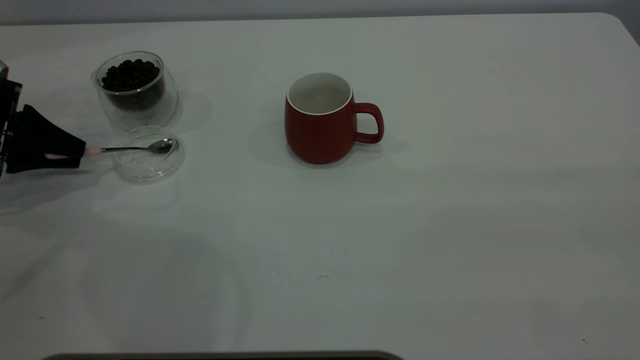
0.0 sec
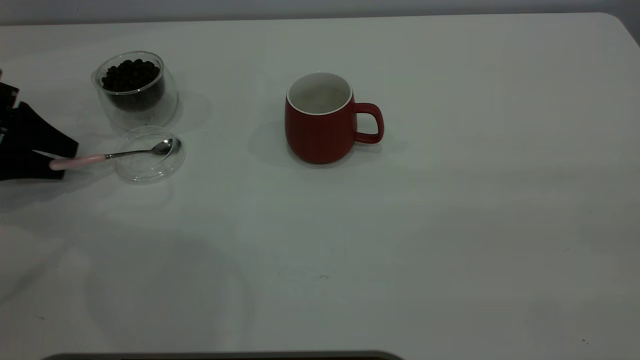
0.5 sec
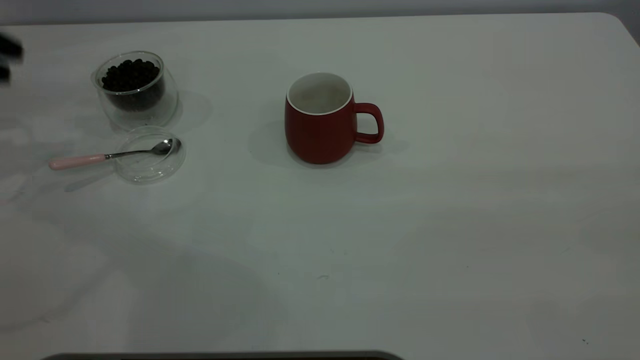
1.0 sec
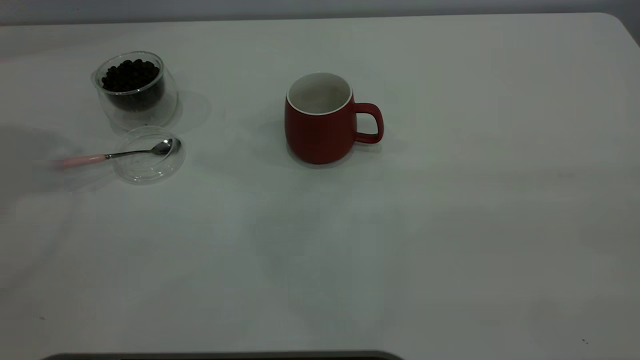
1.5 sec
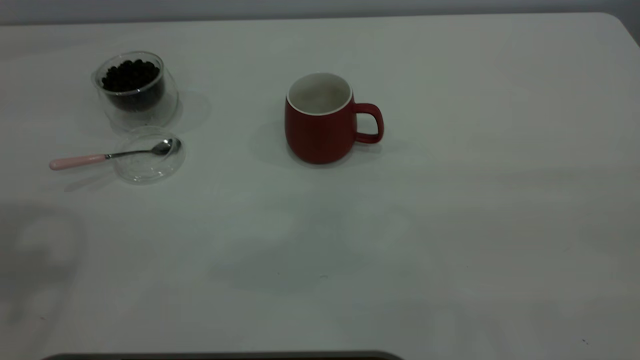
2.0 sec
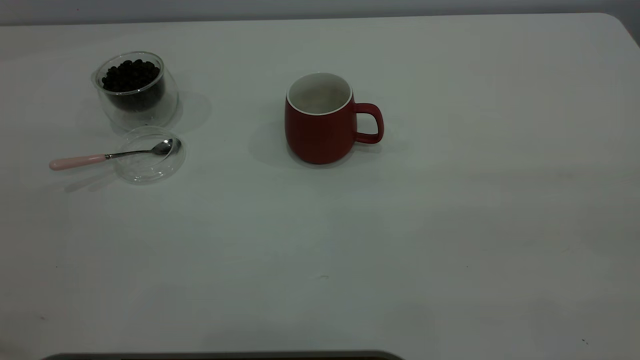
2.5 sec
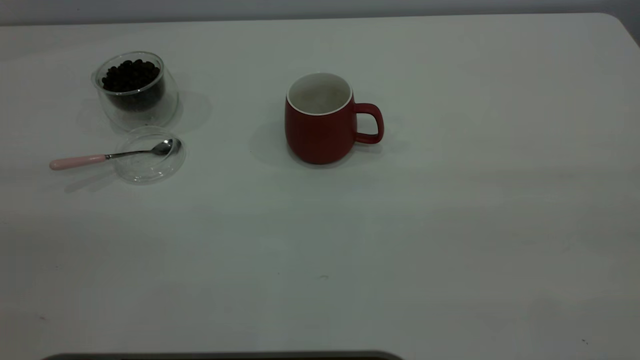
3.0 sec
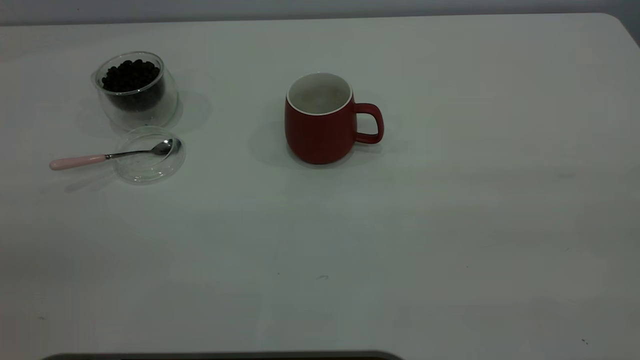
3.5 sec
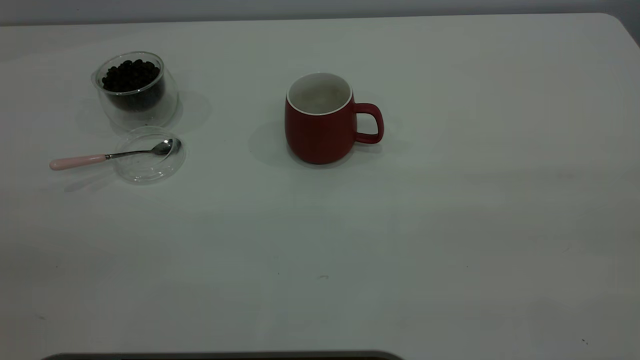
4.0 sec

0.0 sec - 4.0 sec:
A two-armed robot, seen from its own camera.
Task of the whole recording: the right gripper place the red cup in the center of the table, the left gripper take the pink spoon from the cup lid and scoop out the coffee beans from the coffee cup and put them into the red cup, the left gripper put the spoon back into the cup lid.
0.0 sec - 2.0 sec: The left gripper is displaced upward by some 35 cm, and opens its fingers.
